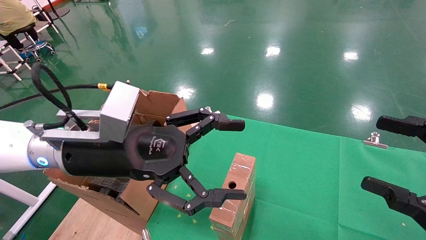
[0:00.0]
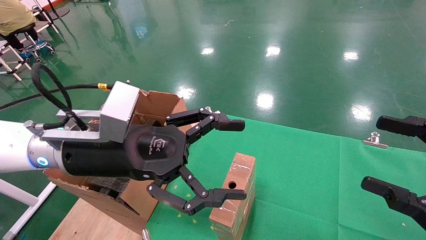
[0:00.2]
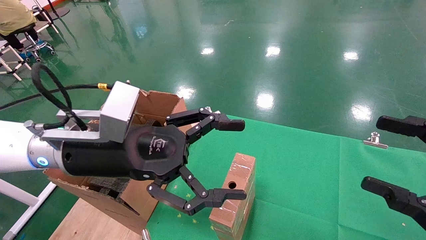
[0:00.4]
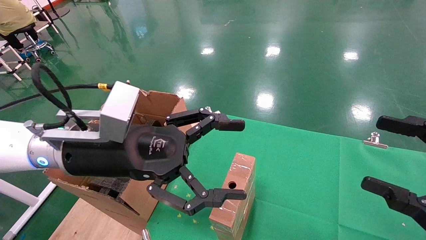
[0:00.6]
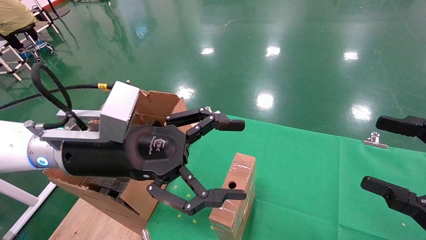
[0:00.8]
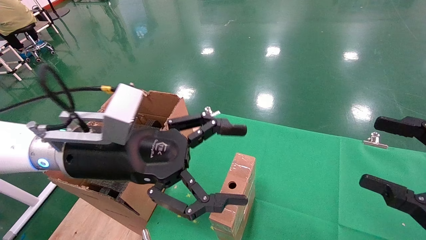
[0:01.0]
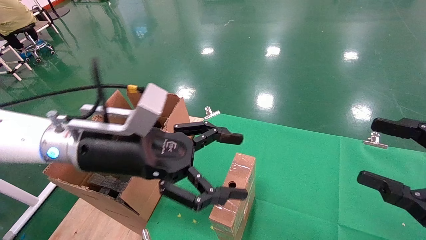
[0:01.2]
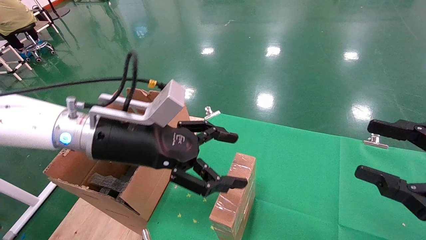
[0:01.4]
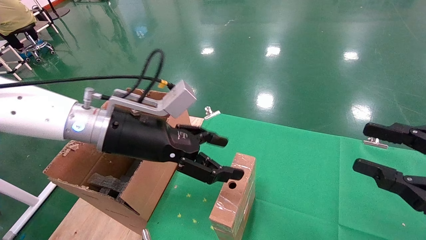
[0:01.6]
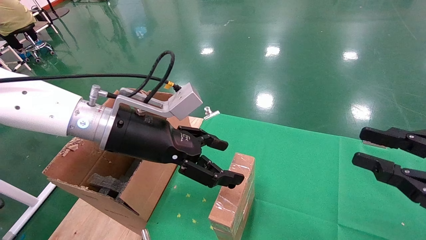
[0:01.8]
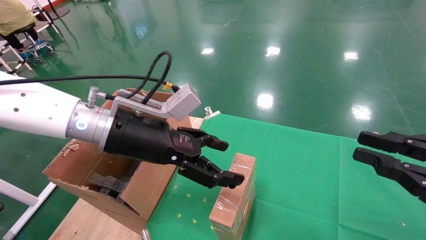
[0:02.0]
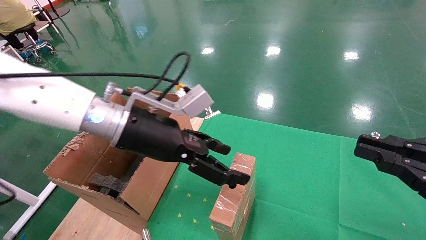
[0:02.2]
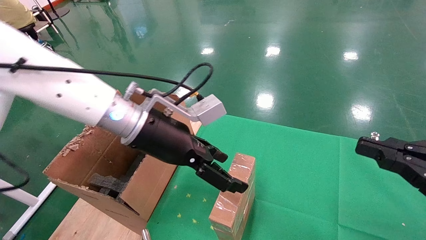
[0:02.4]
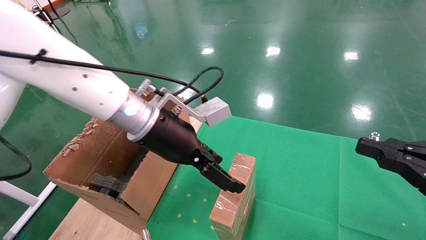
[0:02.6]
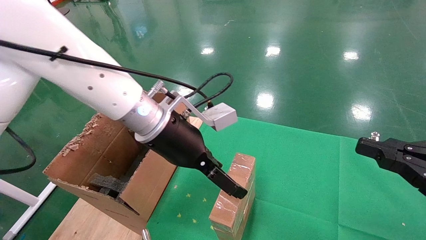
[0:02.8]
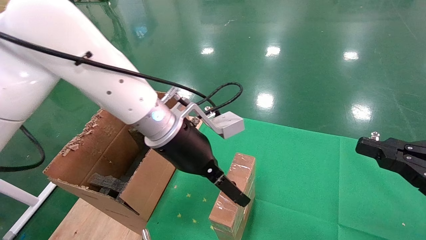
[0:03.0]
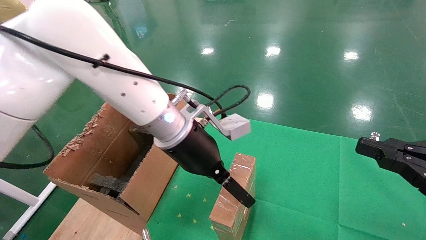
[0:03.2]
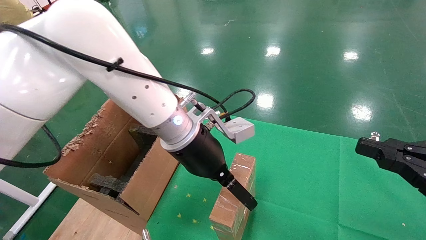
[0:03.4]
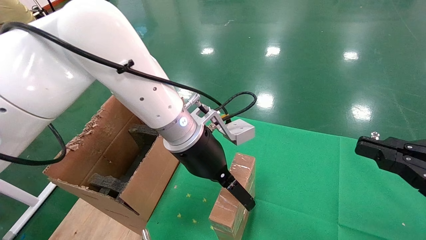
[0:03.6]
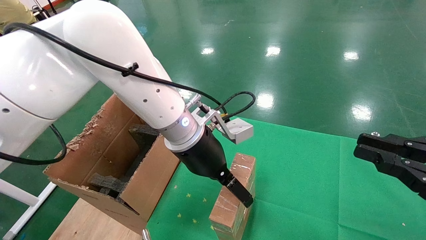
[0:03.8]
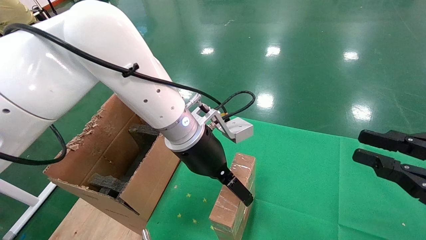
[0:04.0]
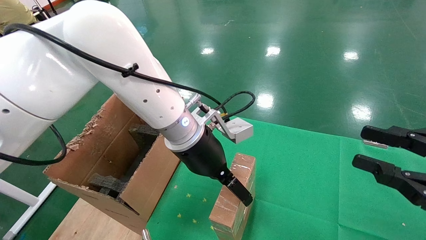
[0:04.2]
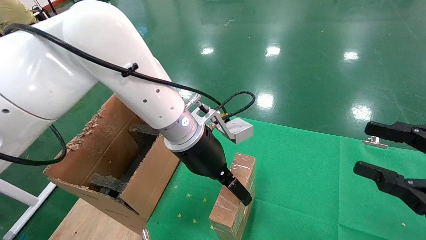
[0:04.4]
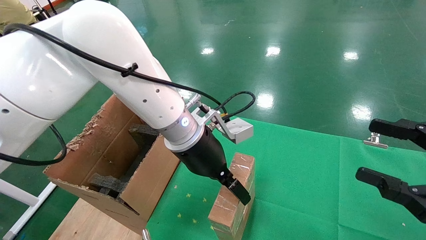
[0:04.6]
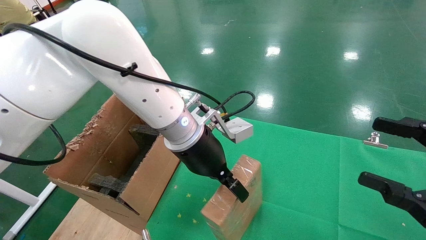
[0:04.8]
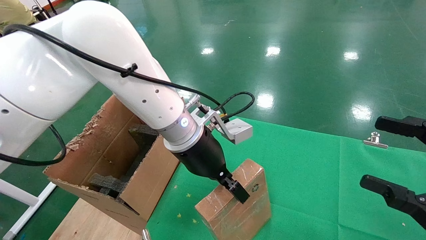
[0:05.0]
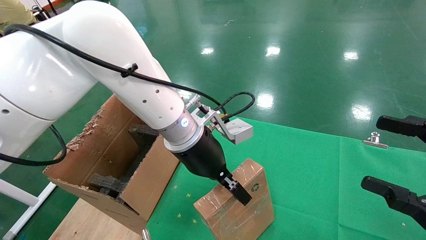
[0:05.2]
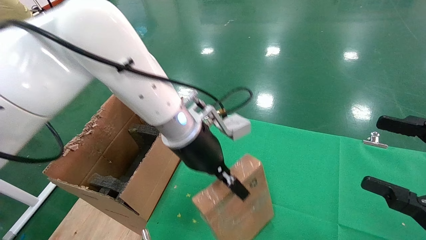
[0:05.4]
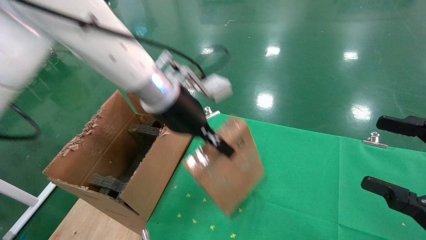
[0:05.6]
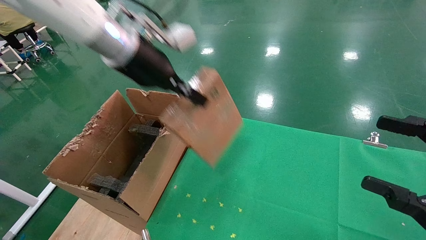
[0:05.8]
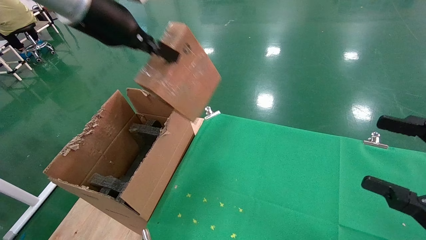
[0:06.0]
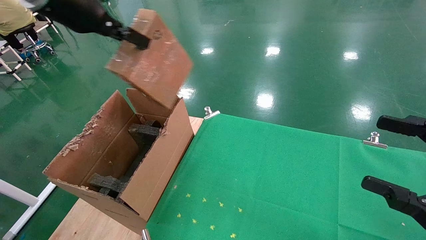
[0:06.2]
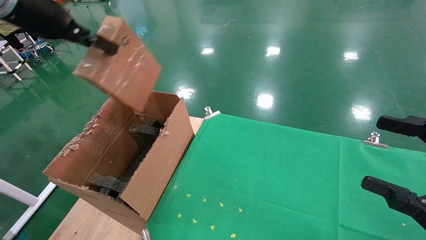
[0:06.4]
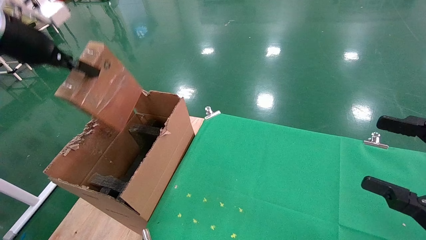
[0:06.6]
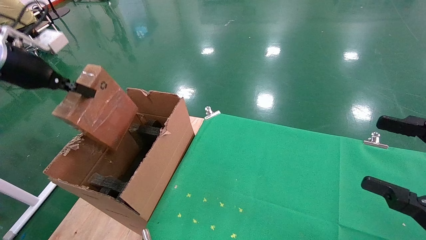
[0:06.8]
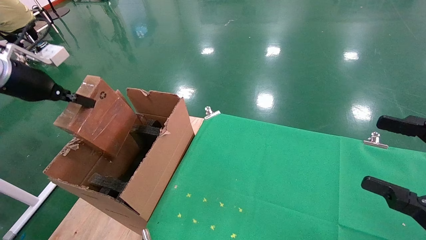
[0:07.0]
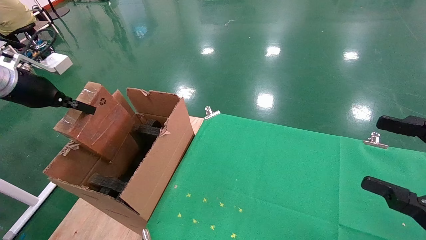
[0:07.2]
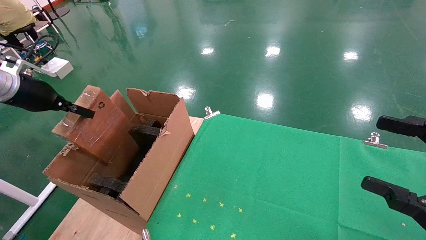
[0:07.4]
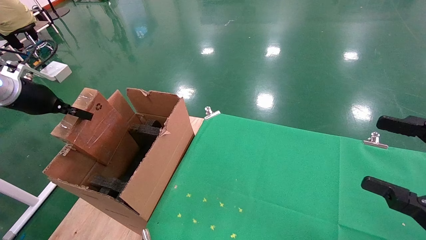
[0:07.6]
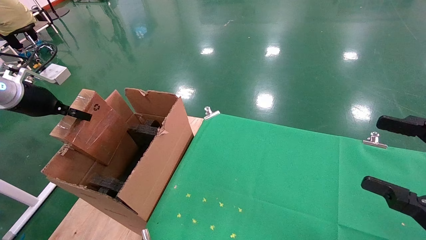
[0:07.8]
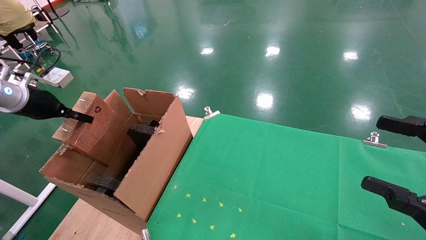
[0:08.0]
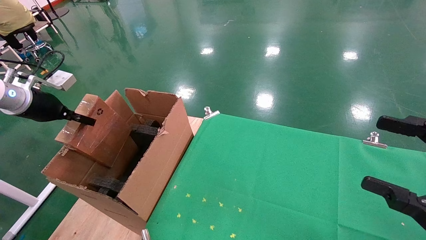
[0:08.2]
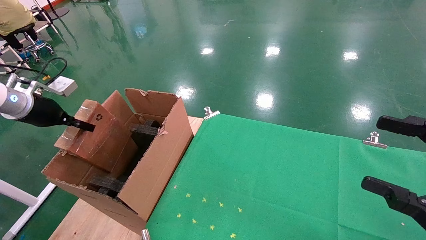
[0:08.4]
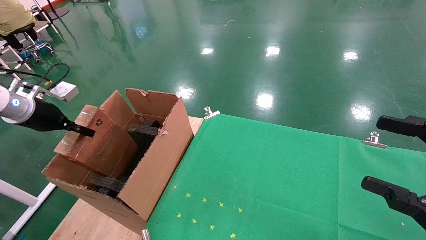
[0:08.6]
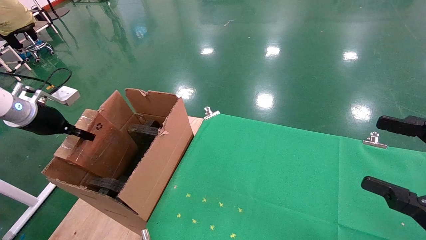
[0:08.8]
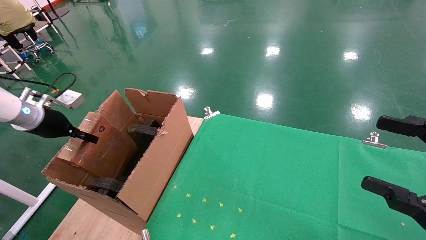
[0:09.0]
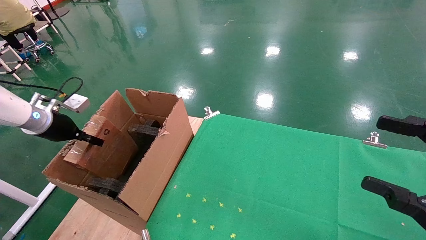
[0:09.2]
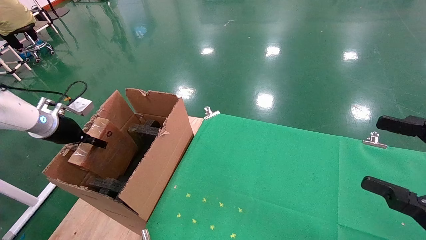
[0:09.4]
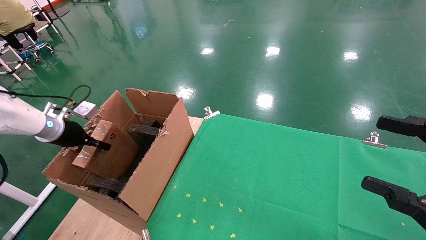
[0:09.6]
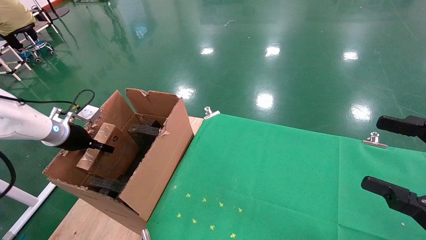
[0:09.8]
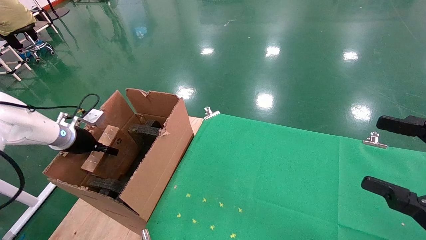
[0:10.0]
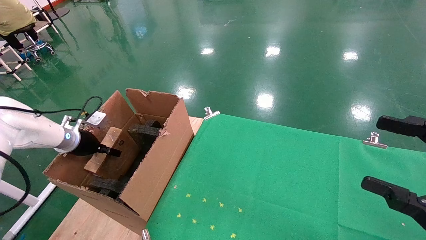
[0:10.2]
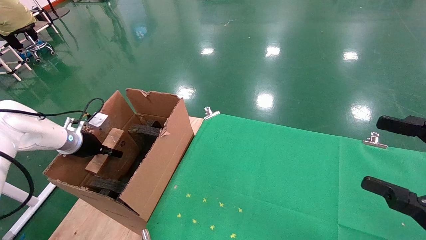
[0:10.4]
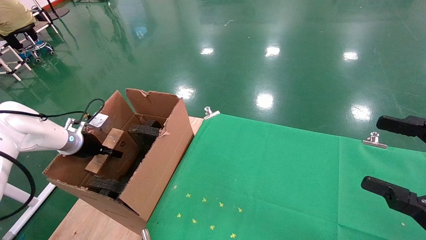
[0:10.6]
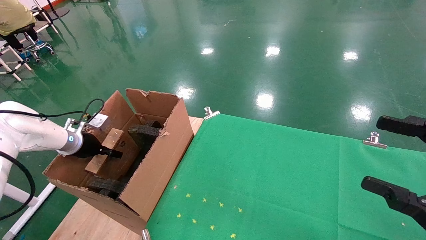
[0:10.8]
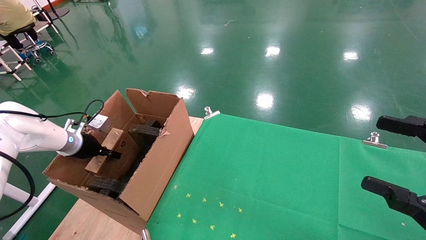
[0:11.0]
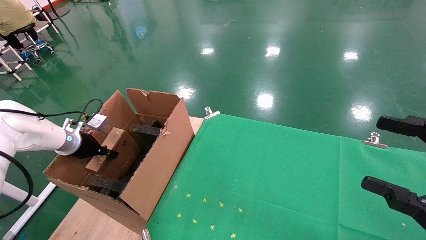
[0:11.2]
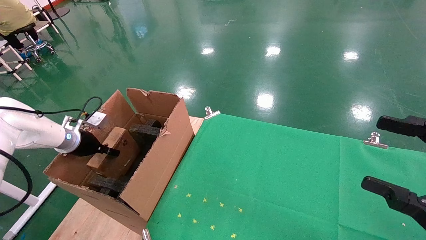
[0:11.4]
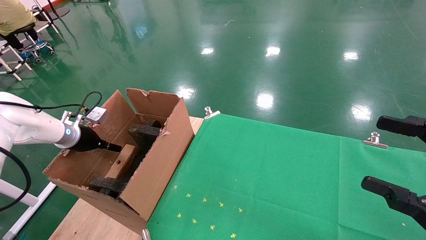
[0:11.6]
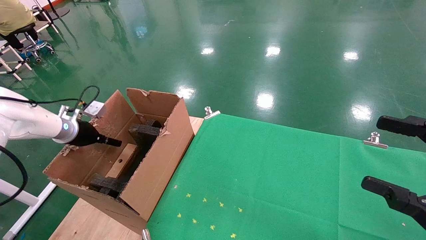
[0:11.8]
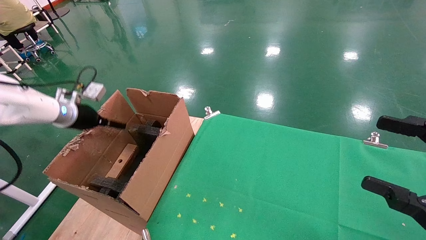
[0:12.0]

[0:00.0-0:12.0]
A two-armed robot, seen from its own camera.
Task of the whole recording: using a robotic arm to pick up a cardboard box and palace it the carton.
Step, 0:01.0 to 0:05.0: Pick up the mouse and the power cord paper box.
0:00.0 to 0:01.6: The right gripper closes its fingers.
0:01.6 to 0:03.0: The right gripper closes. The left gripper is displaced to the right by roughly 10 cm.
0:03.0 to 0:04.4: The right gripper opens its fingers.
0:04.4 to 0:06.0: The right gripper opens its fingers. The left gripper travels upward and to the left by roughly 25 cm, and closes its fingers.
0:06.0 to 0:07.6: The left gripper goes about 30 cm to the left and downward.
0:07.6 to 0:09.0: The left gripper moves downward, some 5 cm.
0:09.0 to 0:10.4: The left gripper goes about 10 cm downward and forward.
0:10.4 to 0:12.0: The left gripper moves upward, about 10 cm, and opens.

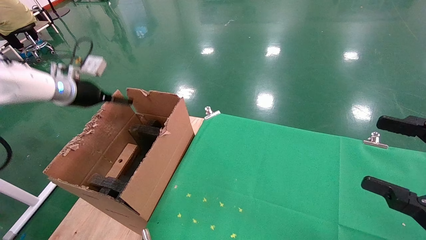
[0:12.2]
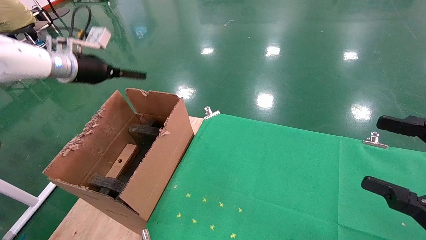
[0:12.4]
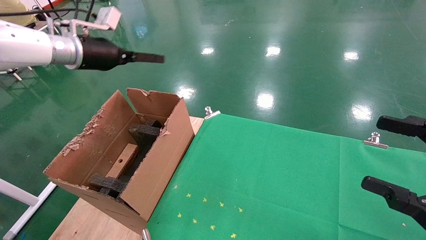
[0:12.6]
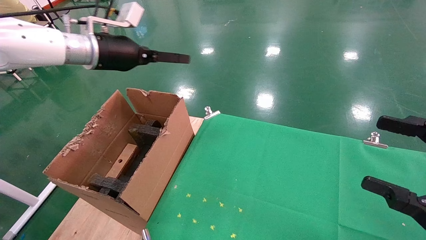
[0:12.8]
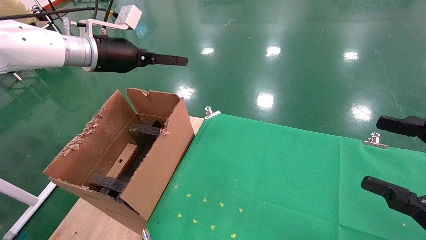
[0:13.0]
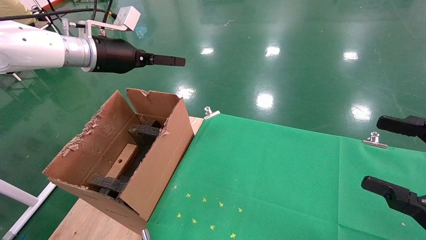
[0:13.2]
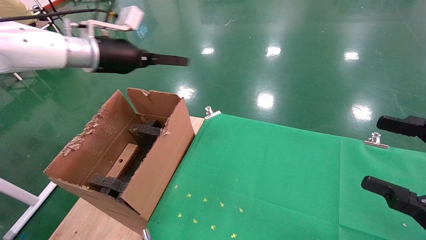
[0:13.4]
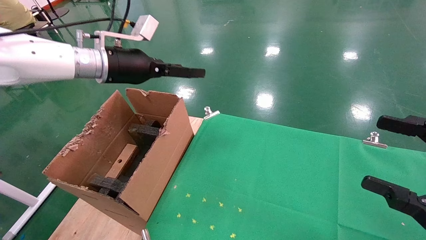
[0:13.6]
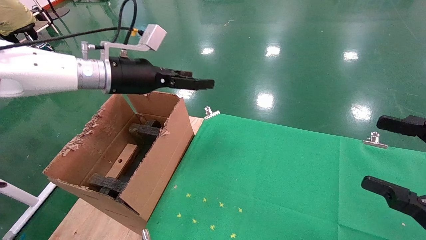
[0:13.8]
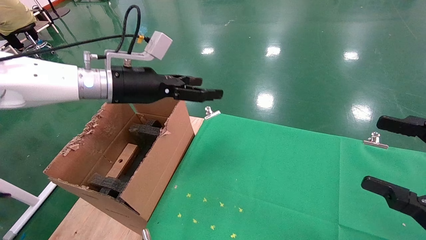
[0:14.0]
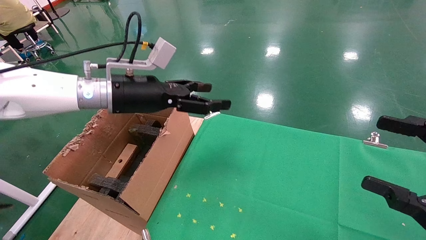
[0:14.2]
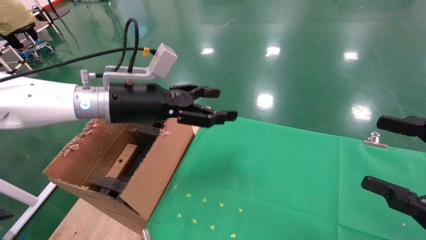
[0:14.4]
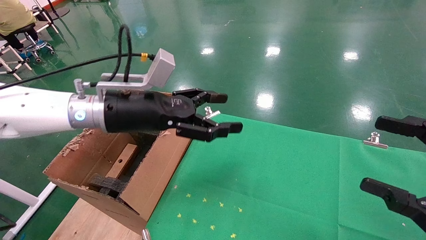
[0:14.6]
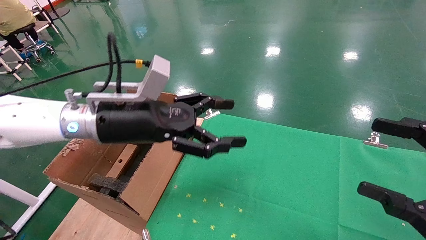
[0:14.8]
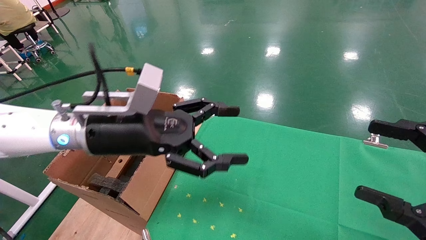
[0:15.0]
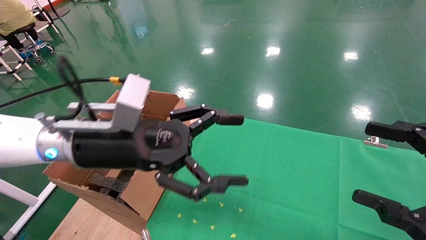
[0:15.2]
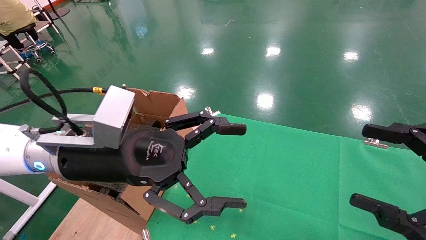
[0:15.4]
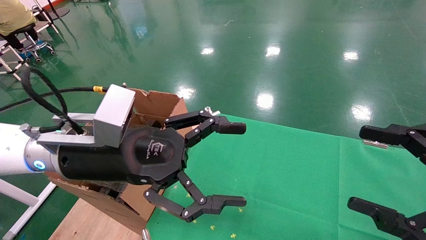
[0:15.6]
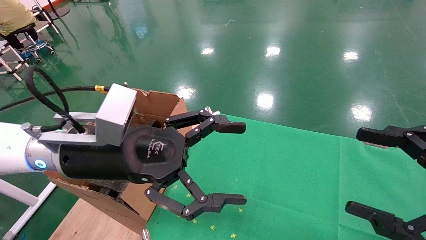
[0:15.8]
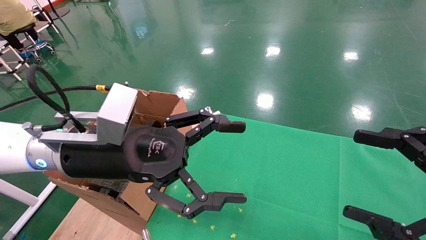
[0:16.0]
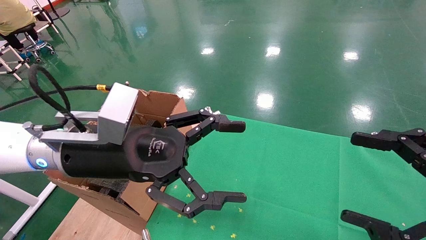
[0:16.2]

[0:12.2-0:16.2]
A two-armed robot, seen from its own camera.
Task of the whole recording: using a robotic arm to pick up a cardboard box and palace it the carton.
0:12.2 to 0:13.6: The left gripper shifts some 15 cm to the right.
0:13.6 to 0:14.8: The left gripper goes about 15 cm backward, to the right and downward.
0:14.8 to 0:16.2: The left gripper is displaced backward by some 5 cm.
